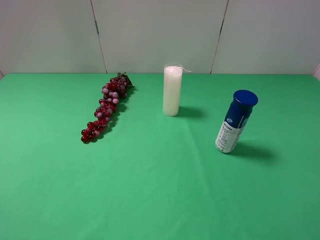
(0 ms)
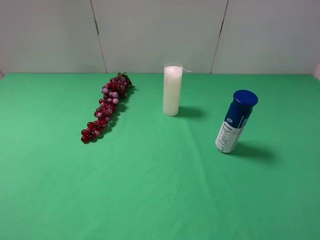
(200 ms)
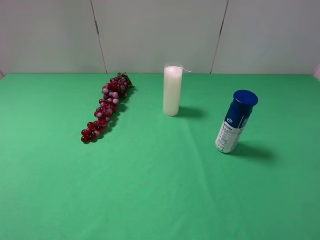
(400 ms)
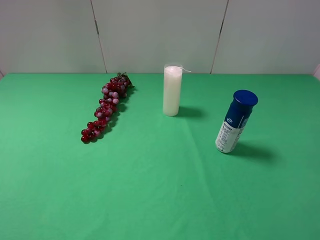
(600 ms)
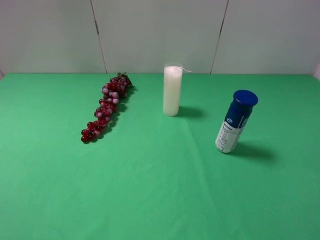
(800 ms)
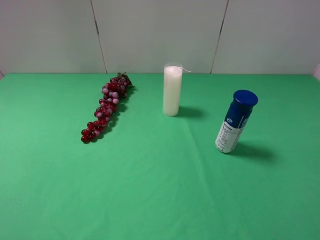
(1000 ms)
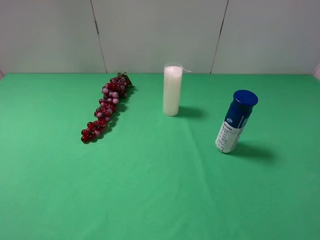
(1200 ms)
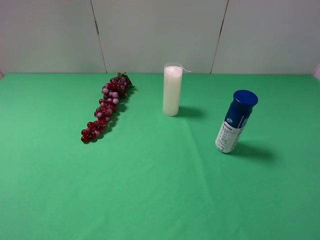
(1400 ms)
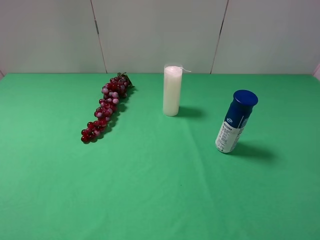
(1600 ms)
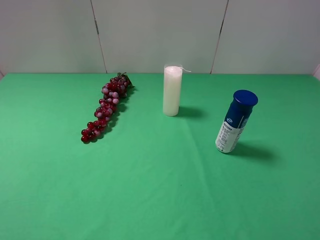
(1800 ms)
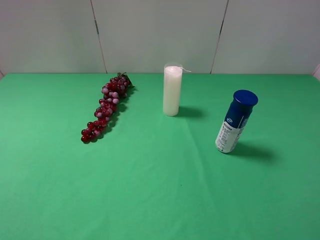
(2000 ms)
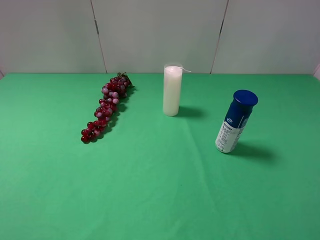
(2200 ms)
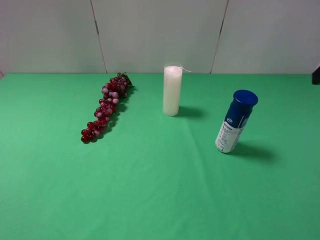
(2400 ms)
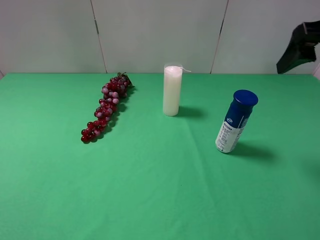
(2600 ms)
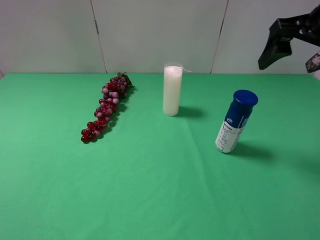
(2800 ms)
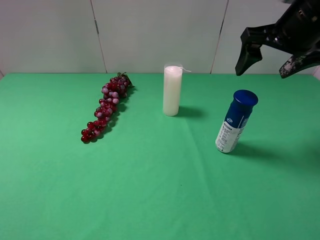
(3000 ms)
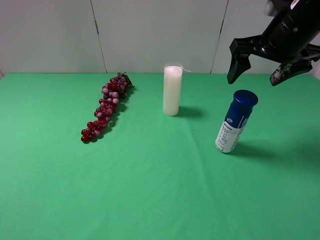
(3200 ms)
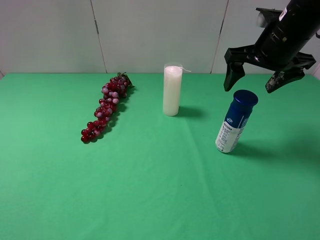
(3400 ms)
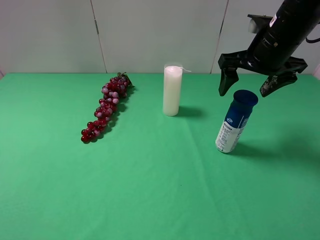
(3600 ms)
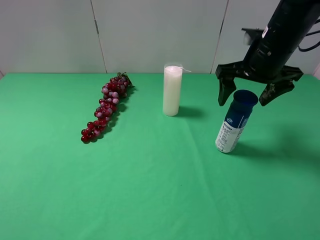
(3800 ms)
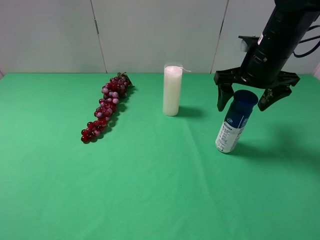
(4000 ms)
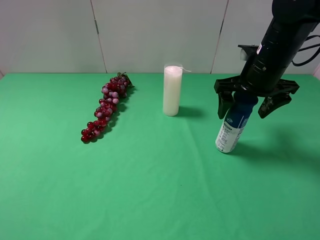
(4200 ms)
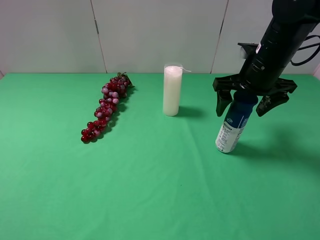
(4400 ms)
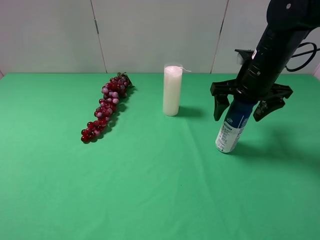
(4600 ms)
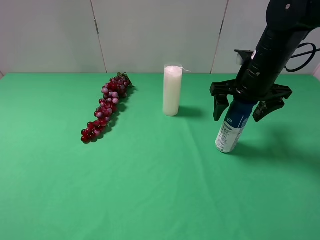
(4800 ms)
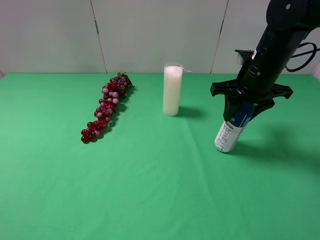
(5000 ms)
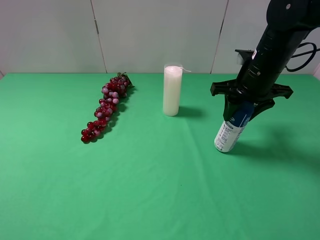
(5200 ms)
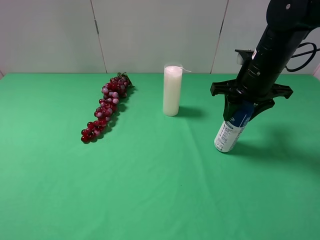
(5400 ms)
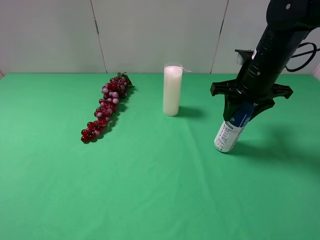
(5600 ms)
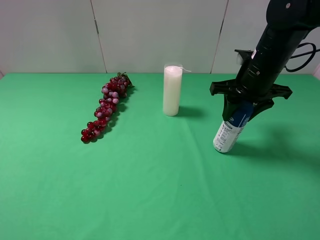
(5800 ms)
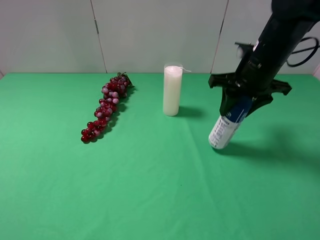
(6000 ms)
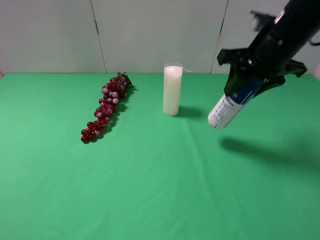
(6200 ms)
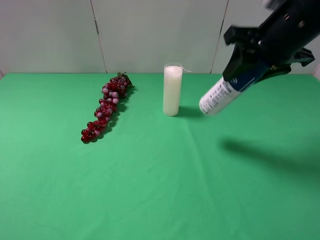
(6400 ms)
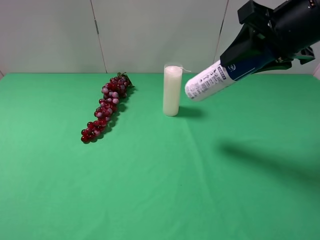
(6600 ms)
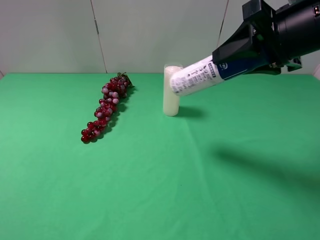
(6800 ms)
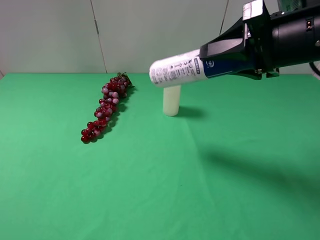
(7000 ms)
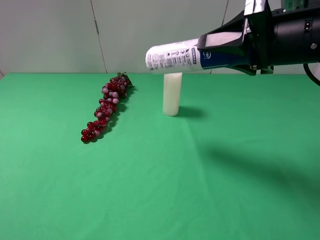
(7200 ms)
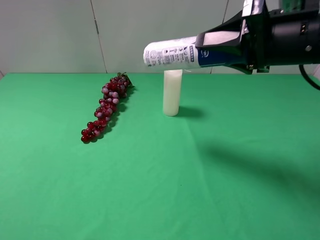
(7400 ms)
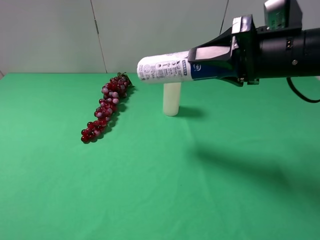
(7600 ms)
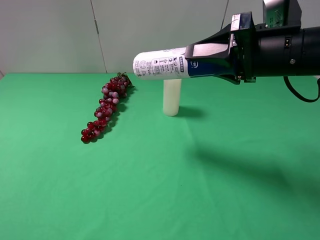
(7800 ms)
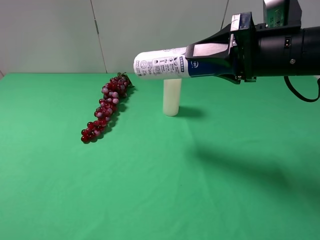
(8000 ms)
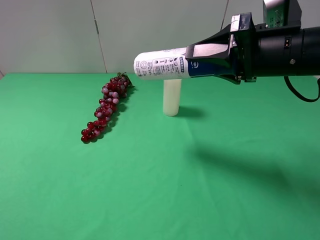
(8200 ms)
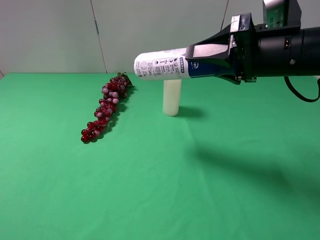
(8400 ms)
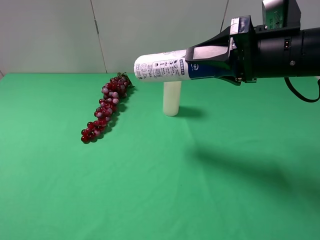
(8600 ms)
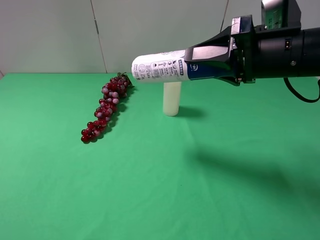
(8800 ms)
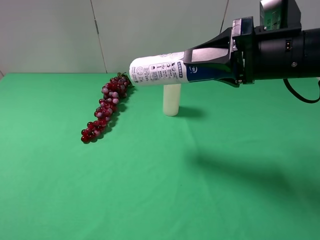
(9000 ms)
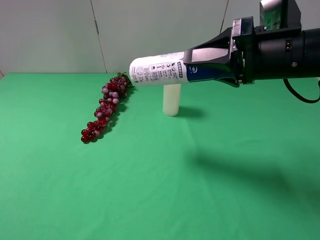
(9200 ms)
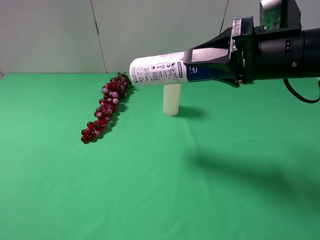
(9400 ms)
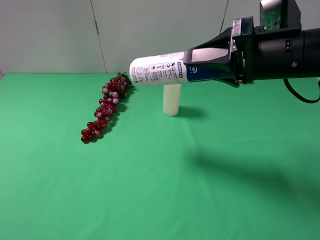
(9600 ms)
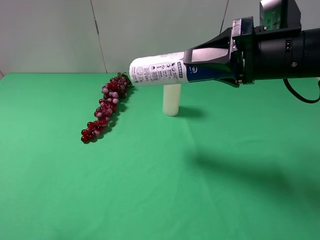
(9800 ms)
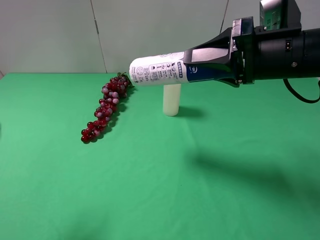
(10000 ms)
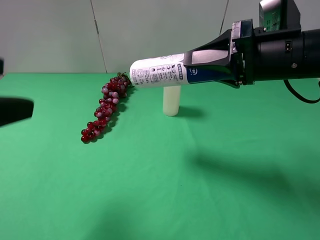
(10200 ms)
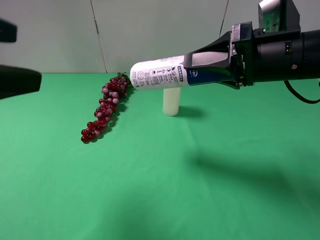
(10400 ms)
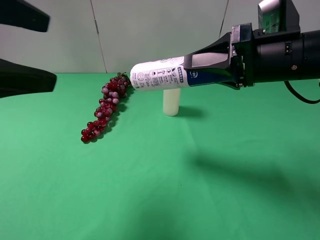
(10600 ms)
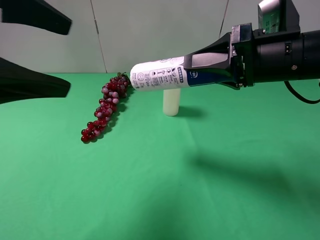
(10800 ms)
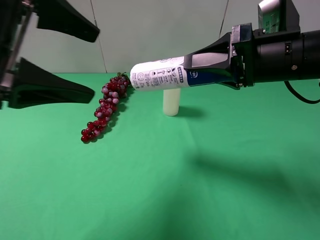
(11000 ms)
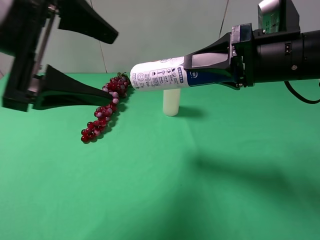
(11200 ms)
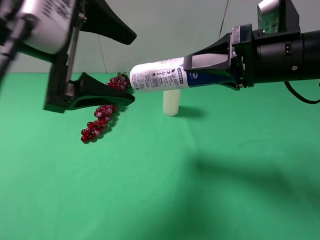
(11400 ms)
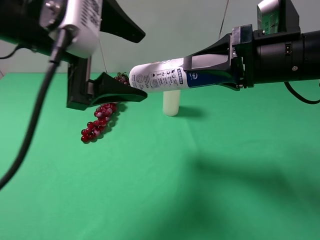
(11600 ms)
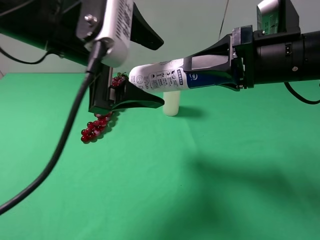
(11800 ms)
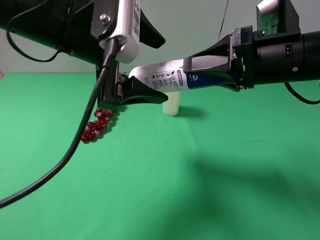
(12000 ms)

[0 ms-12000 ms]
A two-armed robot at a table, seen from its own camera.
Task of the whole recording: use the right gripper to pick up the item and transfer it from the right gripper to the left gripper.
Step, 0 ms to 5200 ms: Use the right gripper to grab the yogurt on the right side of the table.
0 ms to 1600 ms: The two grippers keep their place.
1600 ms to 3000 ms: The right gripper shifts approximately 30 cm forward.
3000 ms to 4400 ms: The right gripper travels downward by roughly 10 cm.
4400 ms to 6000 ms: The right gripper closes its fingers.
6000 ms to 7600 ms: The right gripper shifts some 10 cm backward.
7600 ms to 9000 ms: Both grippers stay about where they are.
9000 ms to 10400 ms: The left gripper goes about 15 cm forward and upward.
10400 ms to 12000 ms: The left gripper goes about 15 cm to the right and forward.

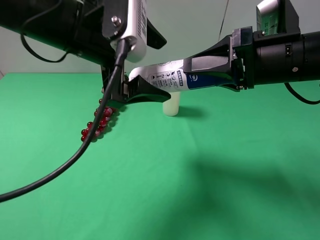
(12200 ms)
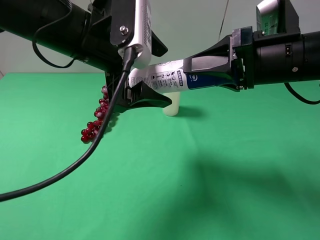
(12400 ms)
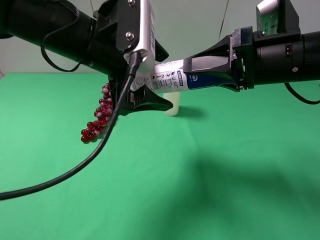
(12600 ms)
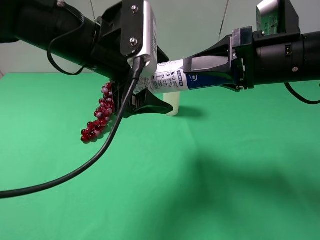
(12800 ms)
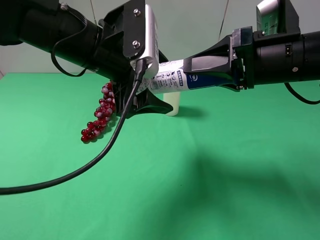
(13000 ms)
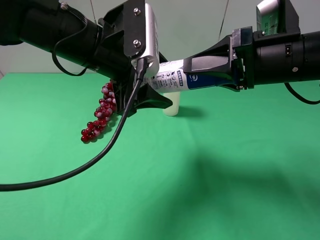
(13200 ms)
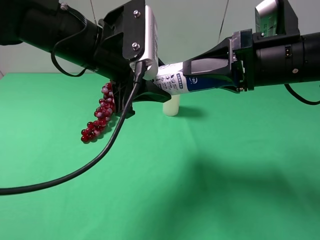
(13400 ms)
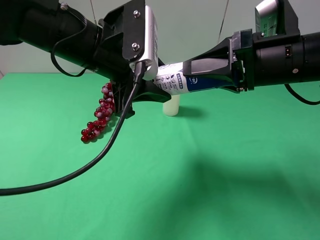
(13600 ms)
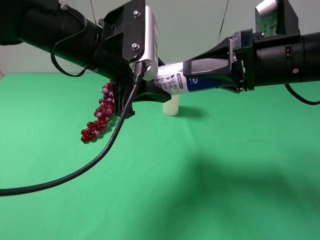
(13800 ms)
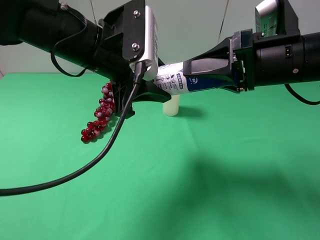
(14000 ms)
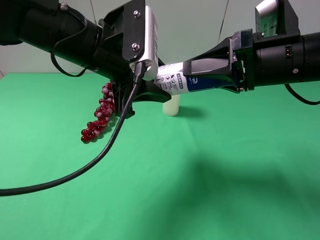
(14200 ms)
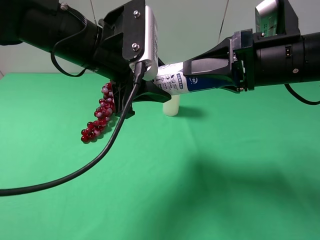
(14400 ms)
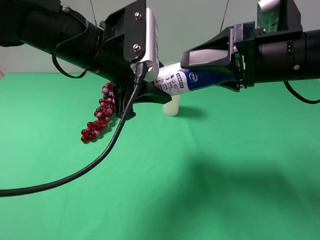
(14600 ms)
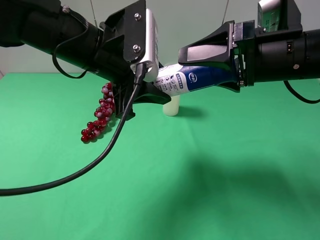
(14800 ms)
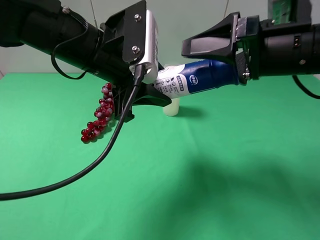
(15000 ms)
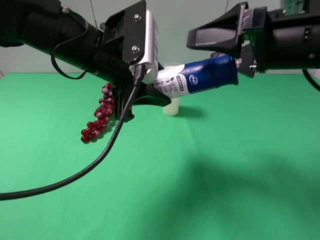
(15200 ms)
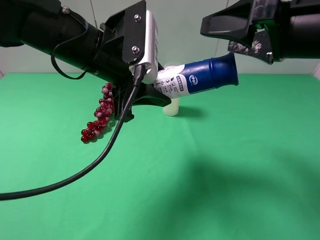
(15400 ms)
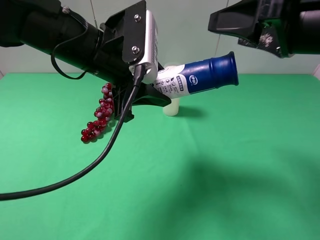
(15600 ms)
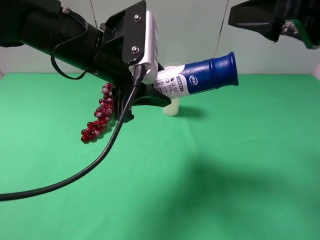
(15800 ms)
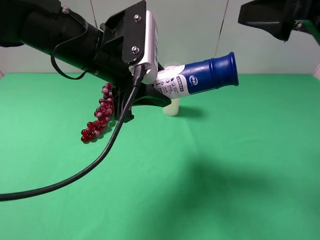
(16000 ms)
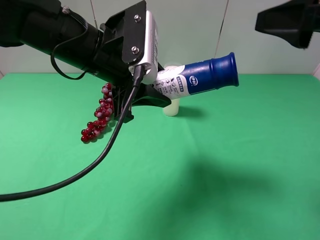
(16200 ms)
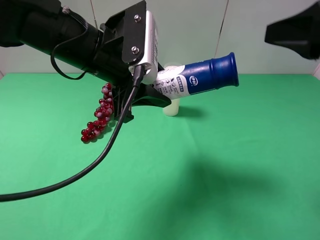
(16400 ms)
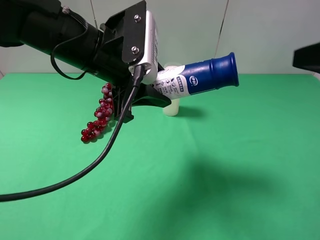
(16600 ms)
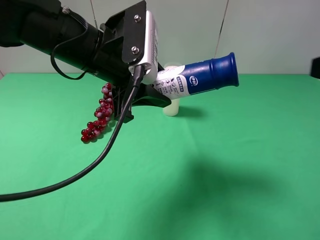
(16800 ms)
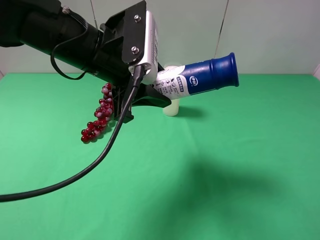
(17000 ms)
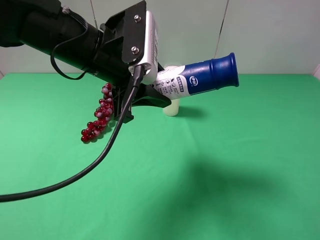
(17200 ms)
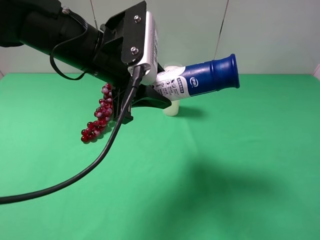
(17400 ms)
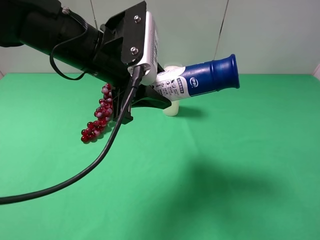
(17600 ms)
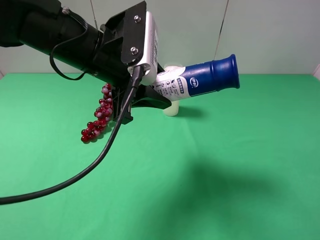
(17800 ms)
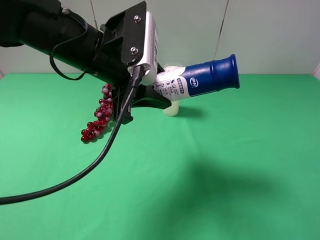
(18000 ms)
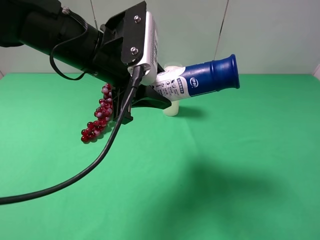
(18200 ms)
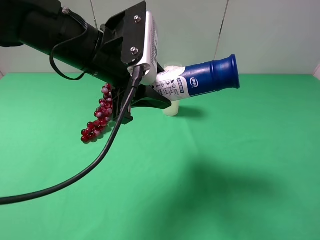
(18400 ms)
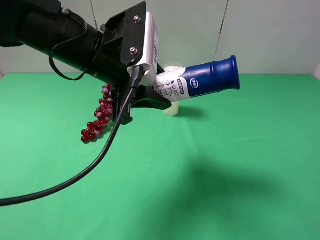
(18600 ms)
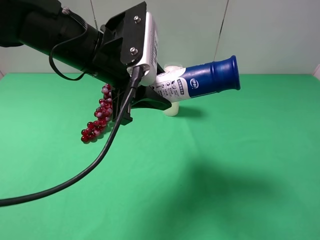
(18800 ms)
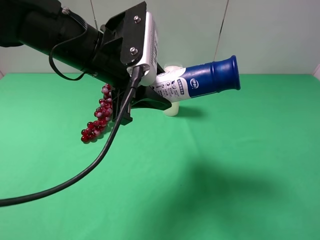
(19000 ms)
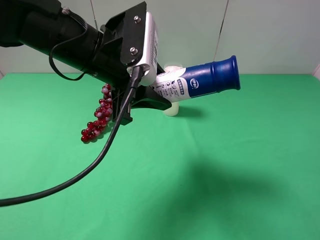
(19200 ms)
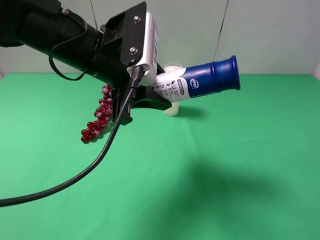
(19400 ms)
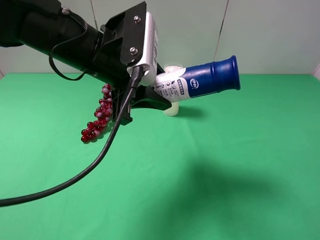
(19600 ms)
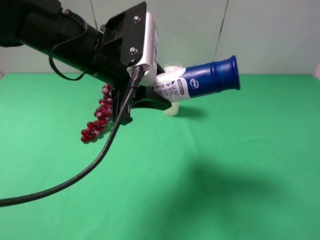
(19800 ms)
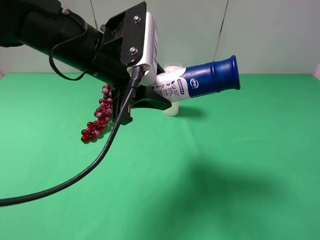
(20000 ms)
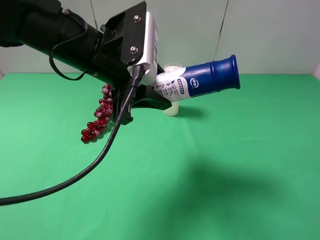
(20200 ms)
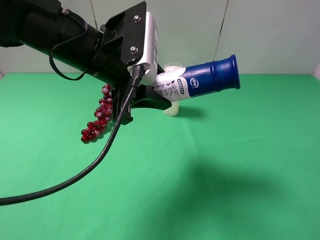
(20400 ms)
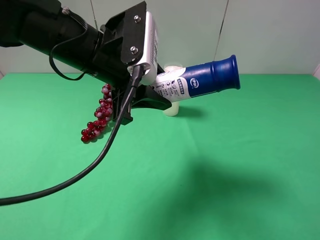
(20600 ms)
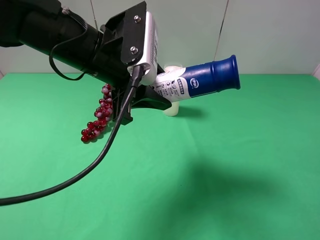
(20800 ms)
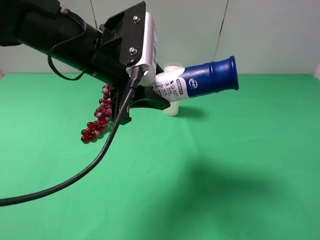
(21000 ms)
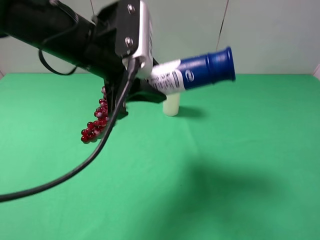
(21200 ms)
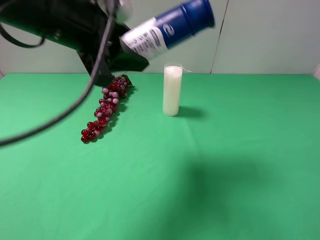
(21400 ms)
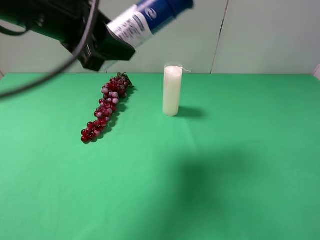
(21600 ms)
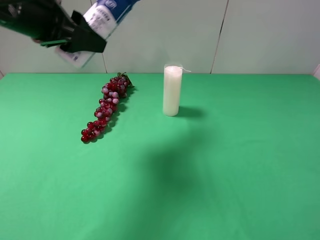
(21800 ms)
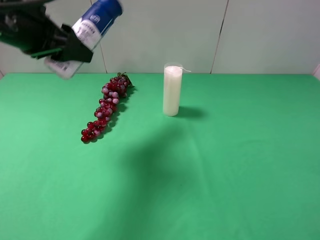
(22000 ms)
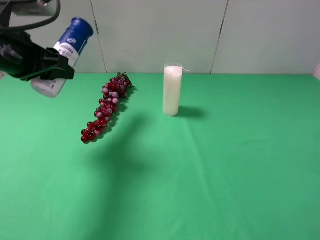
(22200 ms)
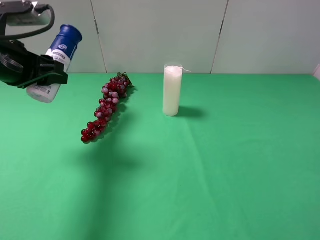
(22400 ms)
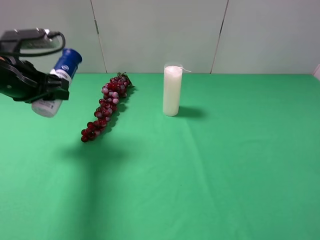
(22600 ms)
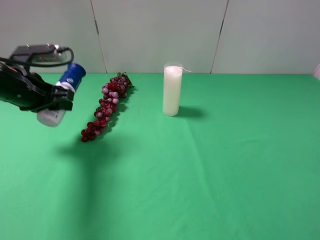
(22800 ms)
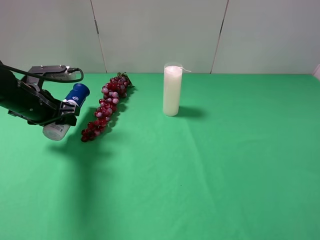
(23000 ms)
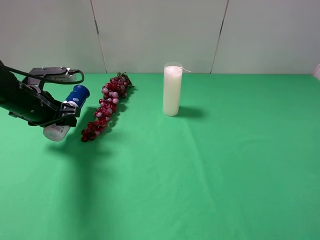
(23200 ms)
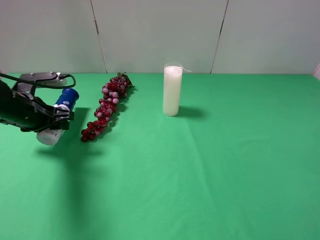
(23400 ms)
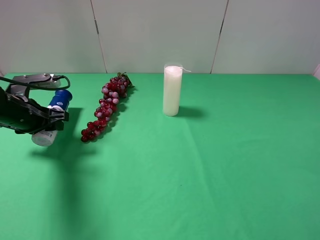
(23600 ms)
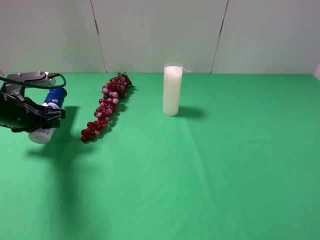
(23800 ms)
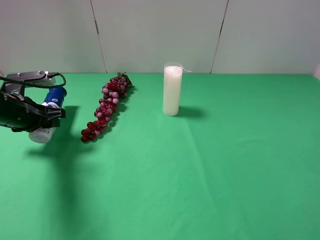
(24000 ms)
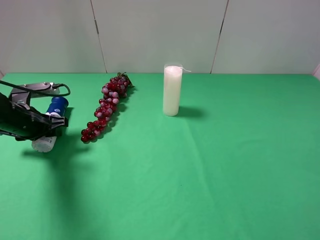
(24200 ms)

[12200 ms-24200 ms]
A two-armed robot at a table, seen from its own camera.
Task of the whole recording: use the right gripper to pick up the item and transfer it from the right gripper to the left gripper.
Step, 12200 ms to 14800 ms: Pass the yogurt to the left gripper.
12200 ms to 13800 ms: The left gripper closes up.
13800 ms to 15200 ms: The right gripper opens.
15200 ms to 16600 ms: The right gripper goes roughly 10 cm backward and to the right.
16600 ms to 18200 ms: The right gripper heads backward and downward, covering roughly 15 cm.
18200 ms to 21200 ms: The grippers move only a little.
21200 ms to 22600 ms: The left gripper heads to the left and downward, covering some 20 cm.
22600 ms to 24200 ms: The left gripper travels downward by roughly 10 cm.
